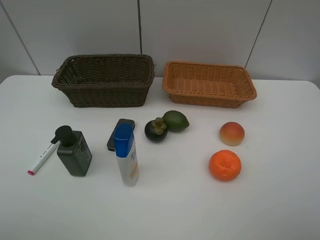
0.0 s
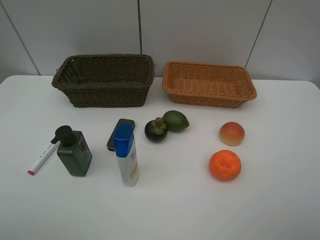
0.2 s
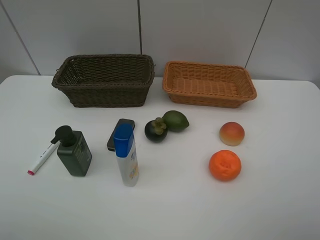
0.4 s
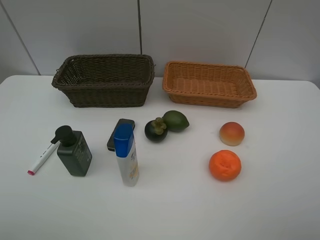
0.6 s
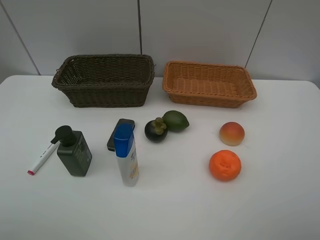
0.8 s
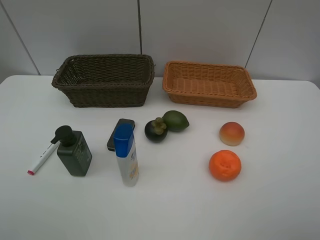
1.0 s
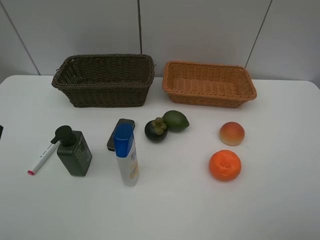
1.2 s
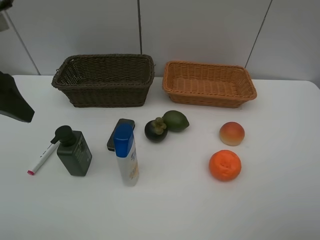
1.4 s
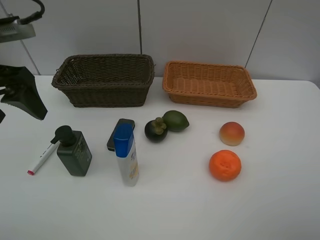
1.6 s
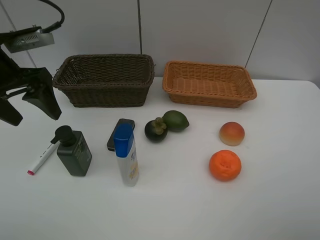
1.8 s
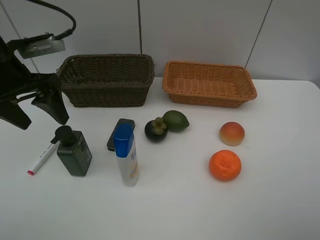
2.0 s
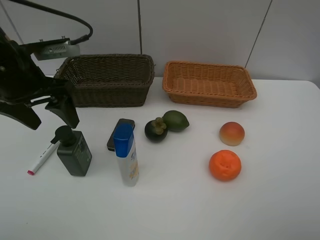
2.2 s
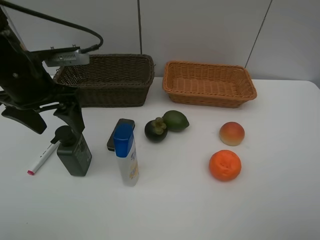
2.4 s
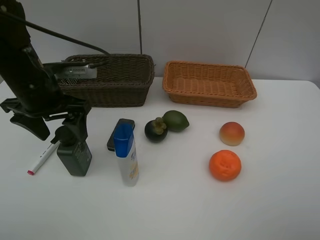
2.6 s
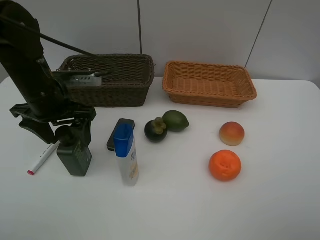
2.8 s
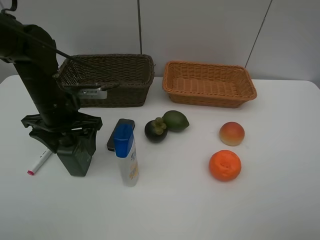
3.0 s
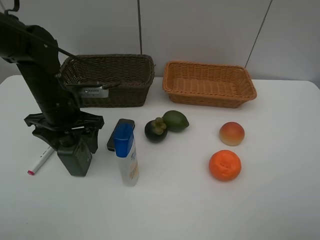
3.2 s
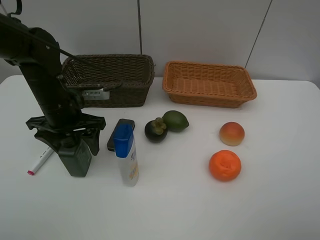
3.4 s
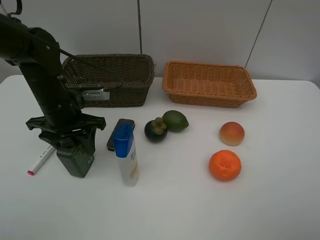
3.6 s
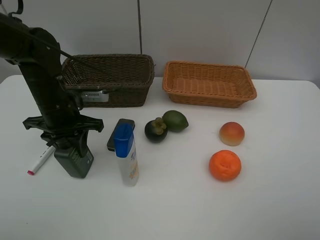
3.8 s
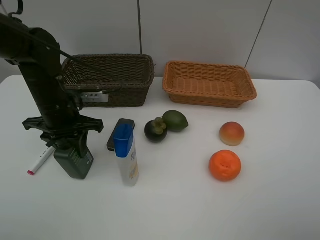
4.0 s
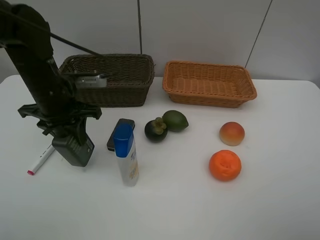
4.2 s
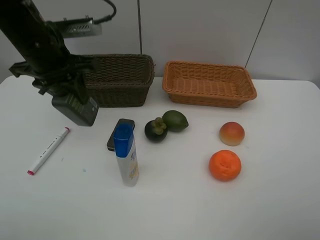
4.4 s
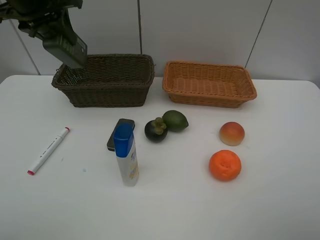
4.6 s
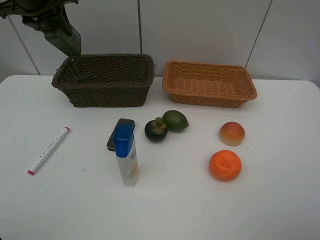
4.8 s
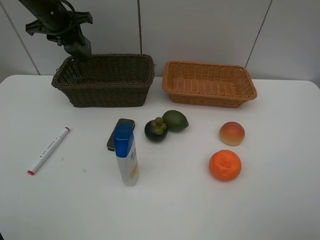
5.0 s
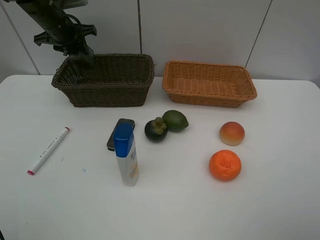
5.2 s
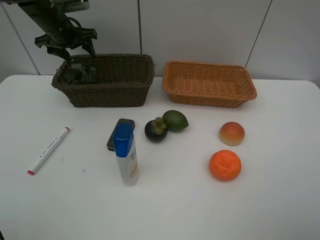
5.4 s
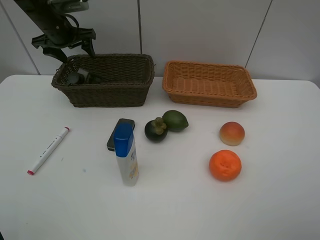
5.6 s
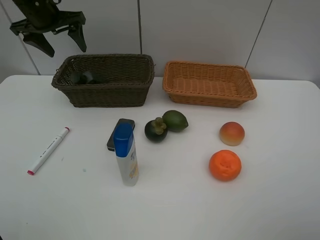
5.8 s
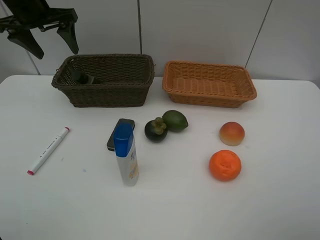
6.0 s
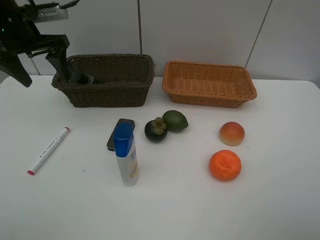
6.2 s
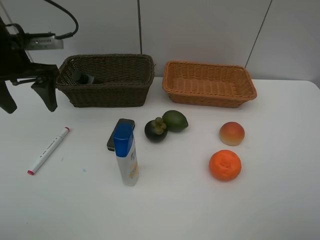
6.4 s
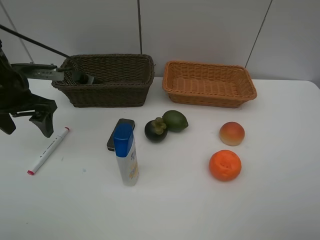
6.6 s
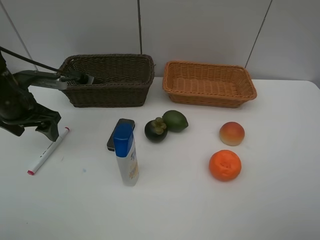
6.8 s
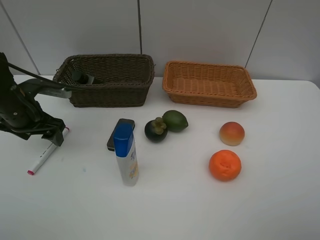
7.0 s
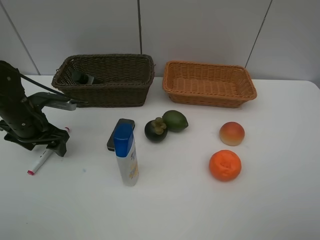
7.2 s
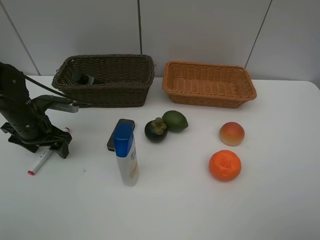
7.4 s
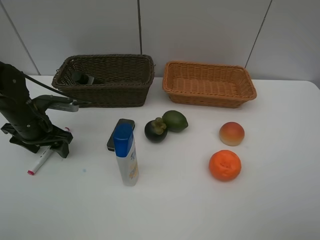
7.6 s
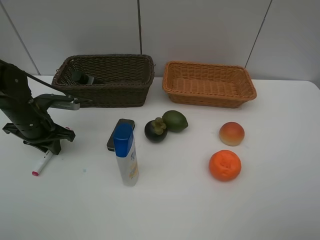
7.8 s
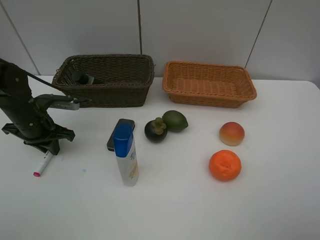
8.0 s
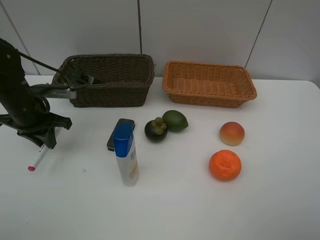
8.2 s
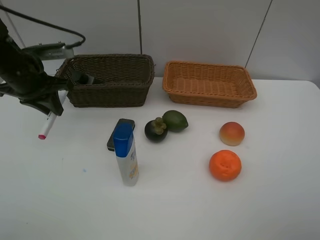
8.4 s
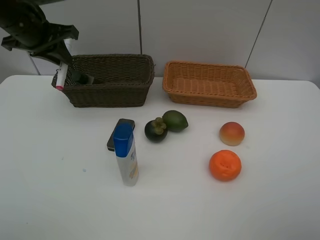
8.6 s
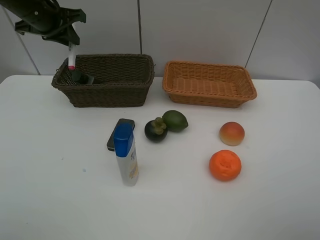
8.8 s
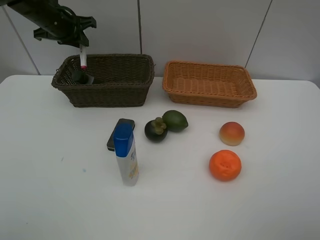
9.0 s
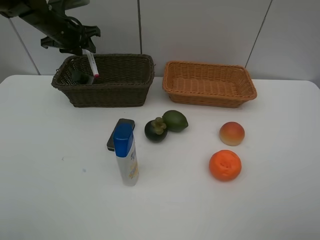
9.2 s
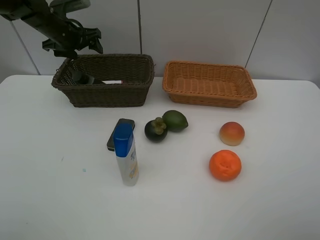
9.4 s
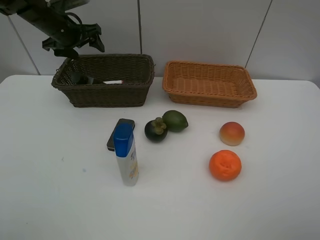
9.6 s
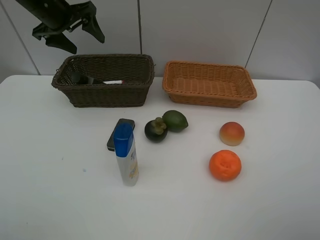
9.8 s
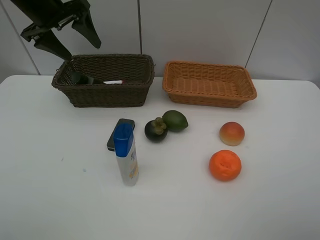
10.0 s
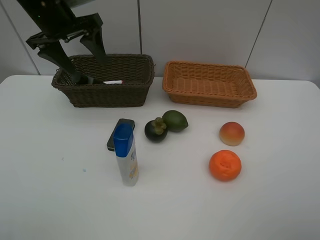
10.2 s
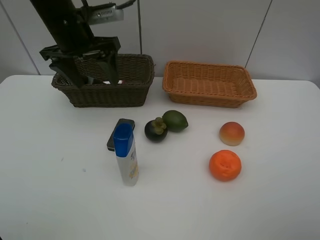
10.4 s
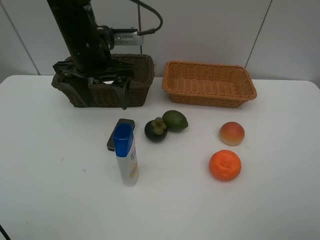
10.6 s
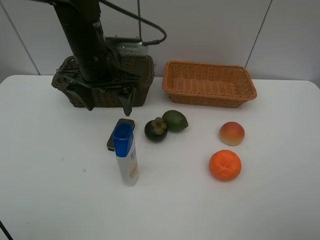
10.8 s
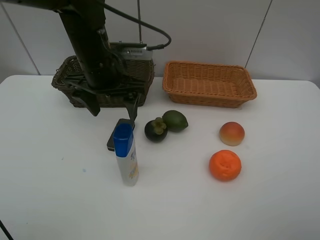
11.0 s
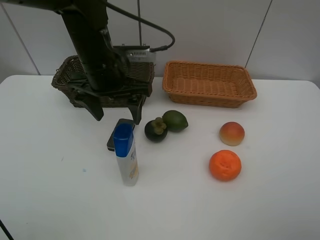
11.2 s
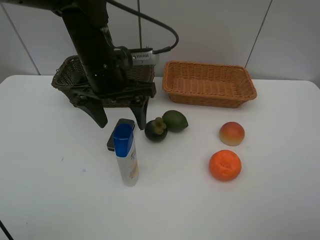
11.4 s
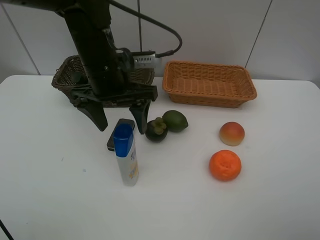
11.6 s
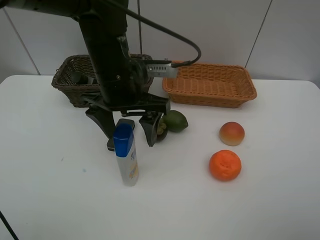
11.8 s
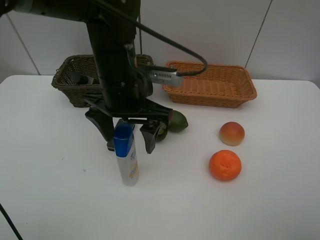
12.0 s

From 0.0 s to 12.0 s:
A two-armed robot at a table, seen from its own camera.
Task of the whole recording: Place multiple objects separately in different baskets.
Step, from 0.0 s to 4.2 s: Pick up the hard facial cleanser with left gripper.
Step, from 4.4 s to 5.4 s: Place the hard facial cleanser in the dark basket with left gripper.
Step, from 5.6 s to 8.2 s: Pick up the red marker with left gripper.
Step, from 8.4 s to 9.4 s: Place the red marker in the dark basket with left gripper.
From 0.0 s to 1.6 s: The left gripper travels forward by about 25 cm.
From 1.6 s to 3.0 s: The left gripper is displaced downward, to the right and forward by roughly 15 cm.
From 3.0 s to 4.4 s: The left gripper is displaced upward by approximately 15 cm, and closes up.
From 4.4 s to 6.0 s: The left gripper heads forward and to the left, covering some 10 cm, and opens.
From 6.0 s to 7.6 s: The left gripper is displaced downward and backward by approximately 25 cm.
From 7.6 s to 9.0 s: The left gripper shifts some 25 cm forward and upward, and closes up.
From 9.0 s to 10.4 s: The left gripper is displaced backward and to the right by approximately 15 cm, and opens.
From 10.4 s to 12.0 s: The left gripper travels to the right and backward by approximately 15 cm.

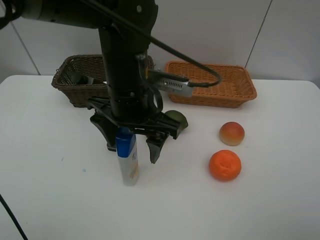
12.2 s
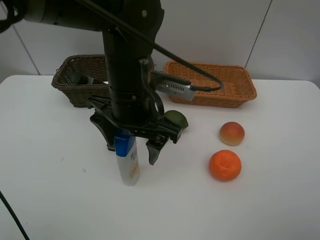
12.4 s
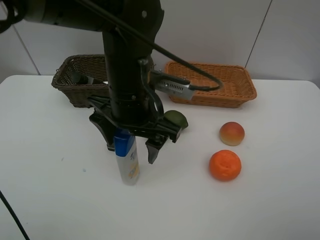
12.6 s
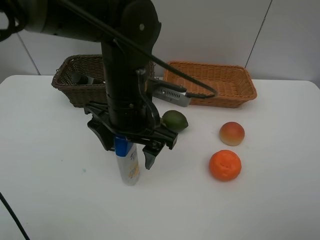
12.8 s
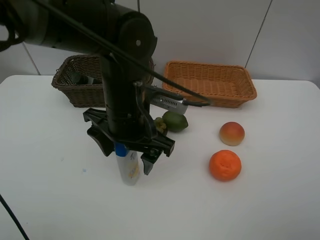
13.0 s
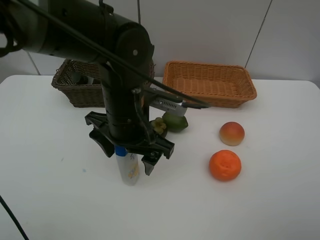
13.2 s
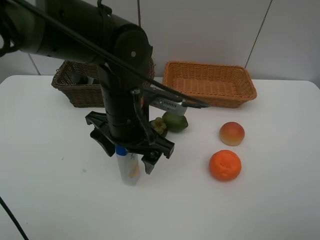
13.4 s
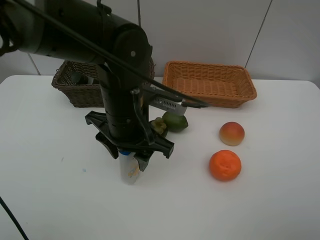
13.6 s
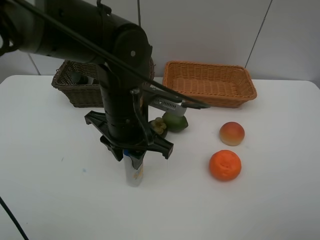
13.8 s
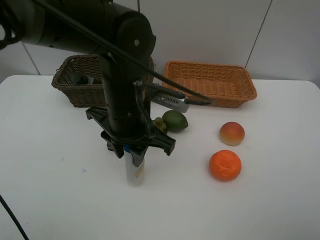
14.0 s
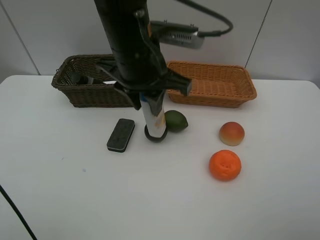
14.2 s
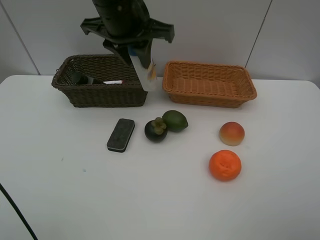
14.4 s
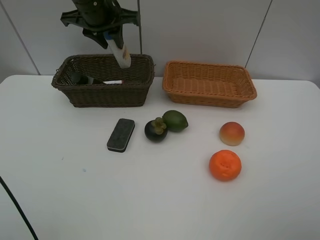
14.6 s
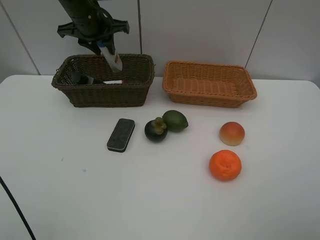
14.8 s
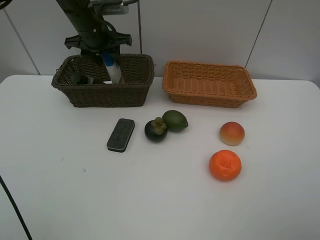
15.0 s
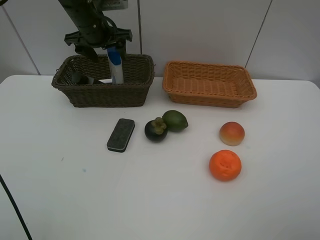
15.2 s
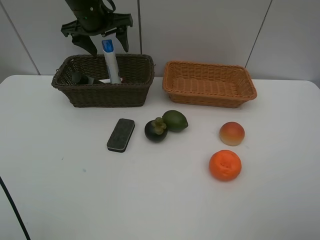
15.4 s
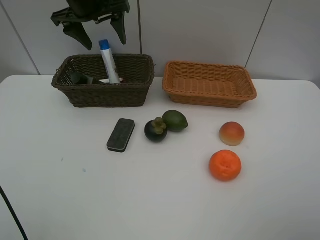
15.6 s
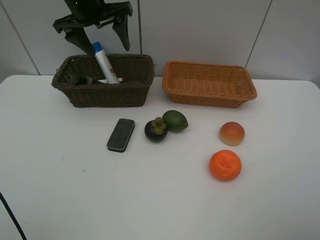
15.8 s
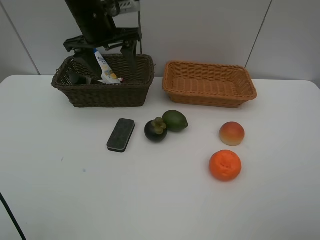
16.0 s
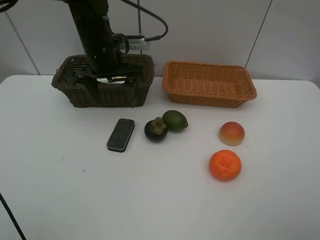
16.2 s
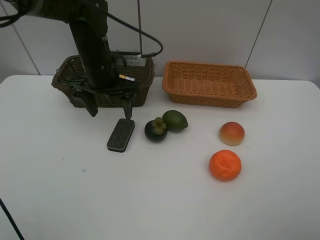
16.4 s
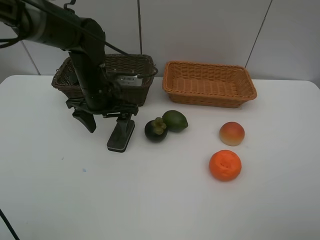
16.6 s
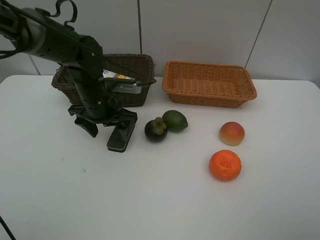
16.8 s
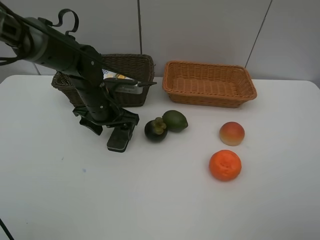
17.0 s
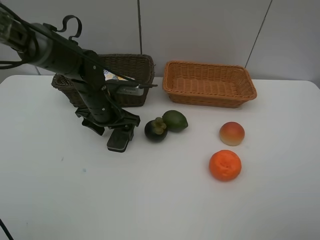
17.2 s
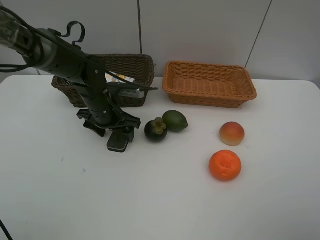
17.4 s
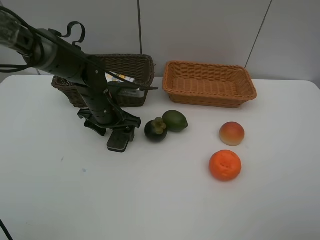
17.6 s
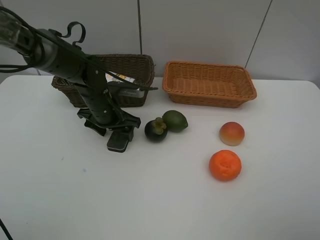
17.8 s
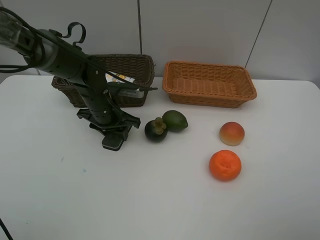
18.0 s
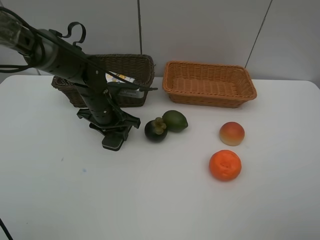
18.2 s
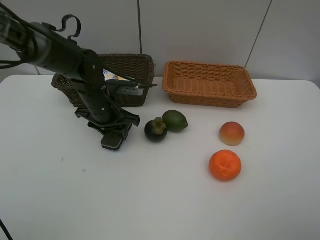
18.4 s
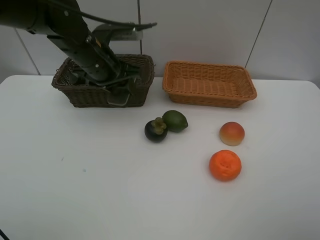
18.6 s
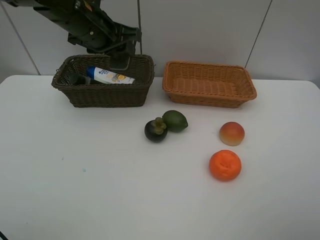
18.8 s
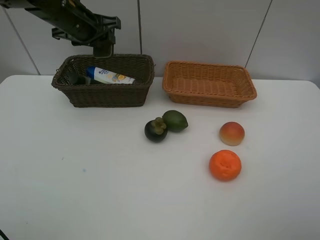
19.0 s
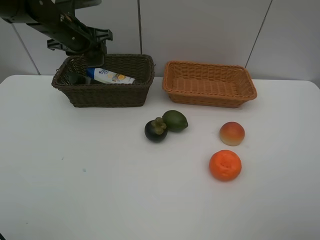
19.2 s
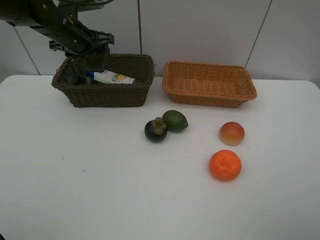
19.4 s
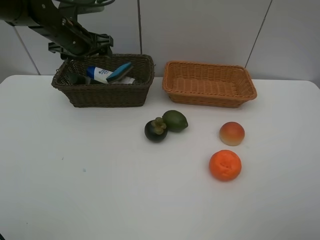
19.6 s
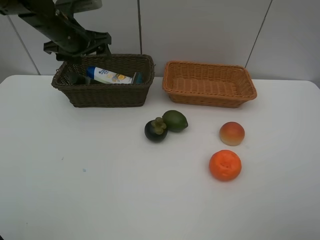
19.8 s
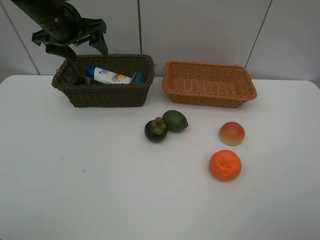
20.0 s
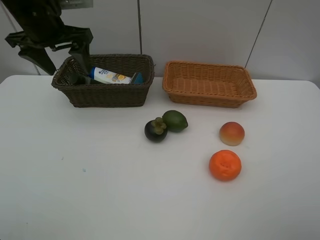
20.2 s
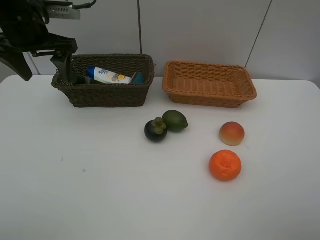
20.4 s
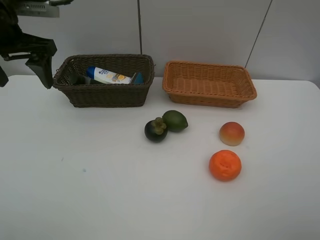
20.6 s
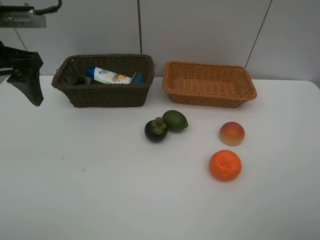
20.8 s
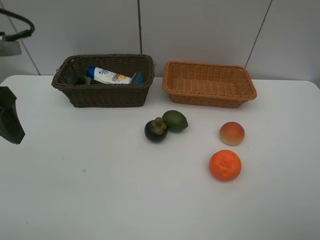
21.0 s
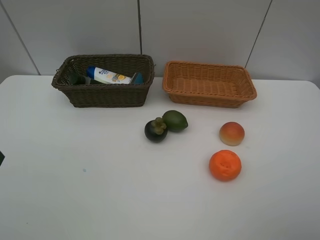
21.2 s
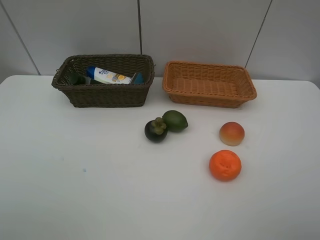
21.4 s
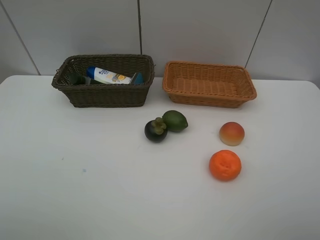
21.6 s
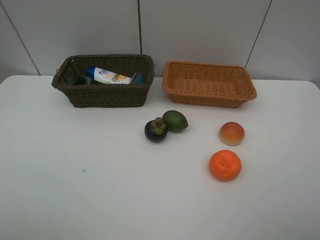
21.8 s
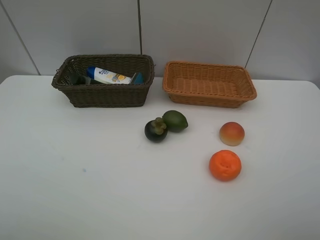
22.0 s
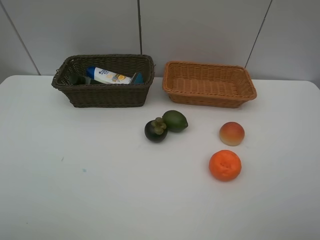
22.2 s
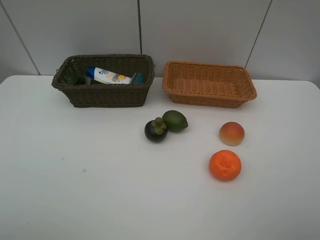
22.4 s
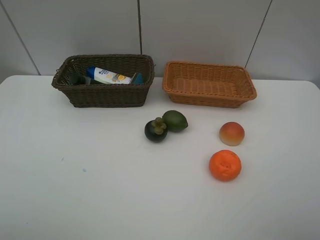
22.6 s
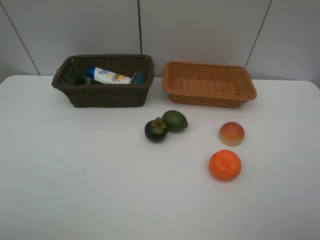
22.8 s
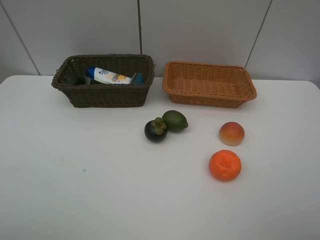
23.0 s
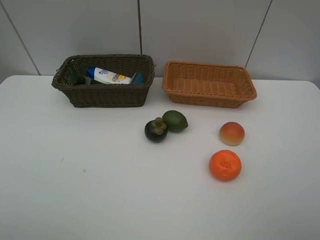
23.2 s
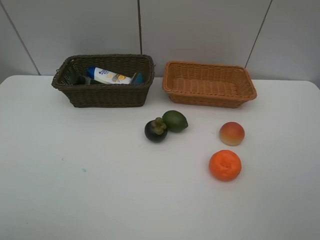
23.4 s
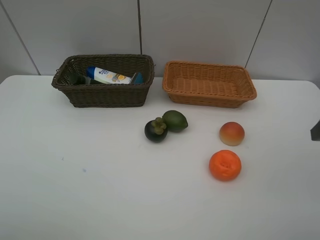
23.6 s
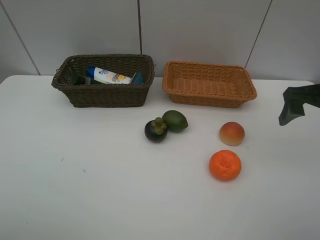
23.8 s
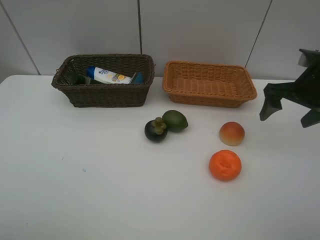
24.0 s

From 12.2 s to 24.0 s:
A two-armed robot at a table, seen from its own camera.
Task of the whole recording: Place multiple objects separately in different baskets.
Step, from 14.2 s to 15.4 s: Place the shampoo in the dark basket with left gripper.
Step, from 15.6 s to 18.4 s: Pick up blackboard eraser with left gripper.
Step, from 18.6 s to 19.8 s: Place the blackboard eraser in the dark basket with left gripper.
From 12.2 s to 13.6 s: The left gripper closes up.
From 13.6 s to 15.2 s: The left gripper moves forward and to the left, about 25 cm, and opens up.
From 15.2 s to 16.6 s: The left gripper is displaced backward and downward by about 15 cm.
From 16.6 s to 18.2 s: The left gripper closes up.
From 18.2 s to 19.6 s: The left gripper shifts about 15 cm upward, forward and to the left, and opens its fingers.
From 19.6 s to 21.0 s: The left gripper shifts roughly 25 cm backward.
From 21.0 s to 22.6 s: The left gripper is displaced backward by approximately 20 cm.
From 22.6 s to 24.0 s: The right gripper goes approximately 30 cm forward.
